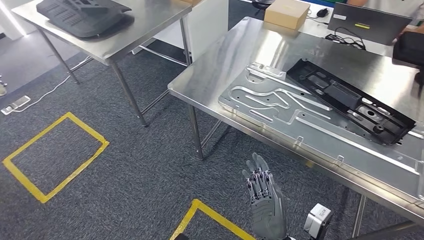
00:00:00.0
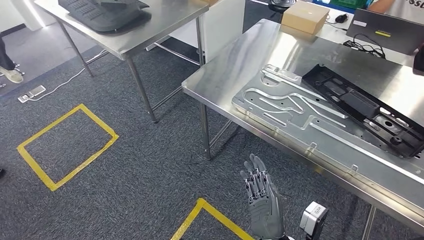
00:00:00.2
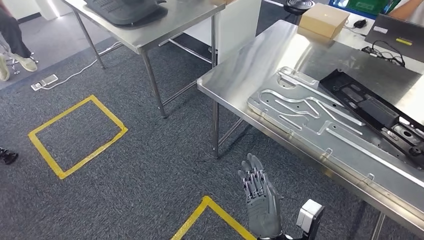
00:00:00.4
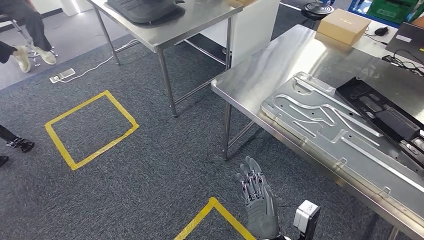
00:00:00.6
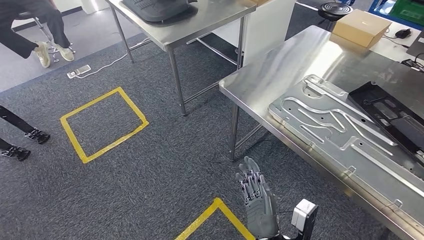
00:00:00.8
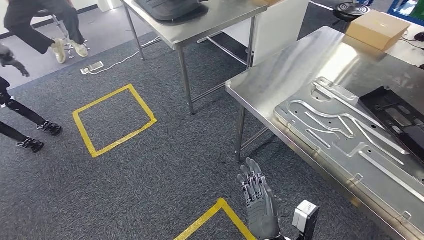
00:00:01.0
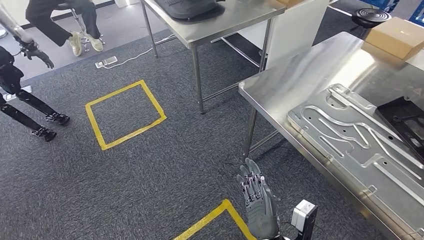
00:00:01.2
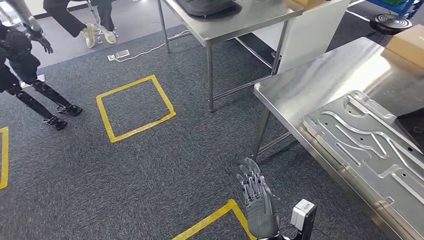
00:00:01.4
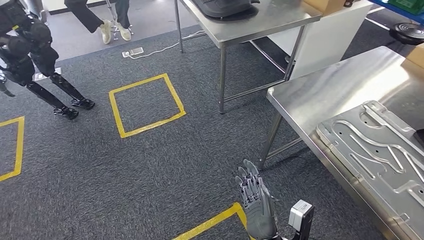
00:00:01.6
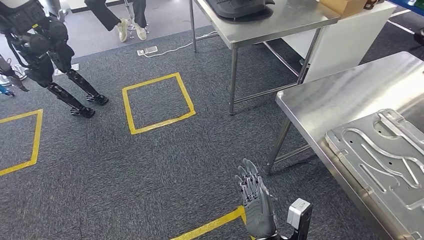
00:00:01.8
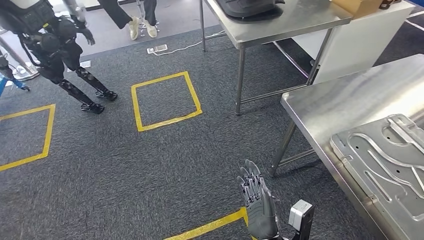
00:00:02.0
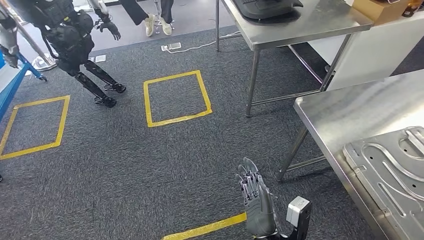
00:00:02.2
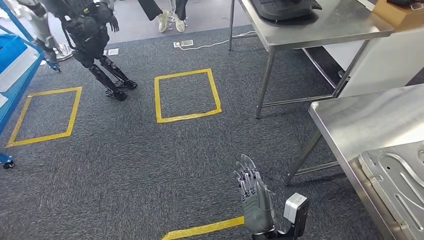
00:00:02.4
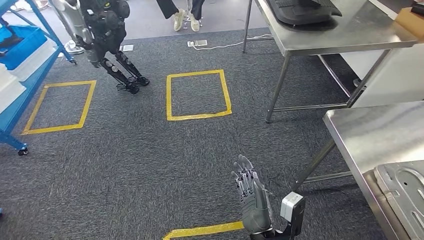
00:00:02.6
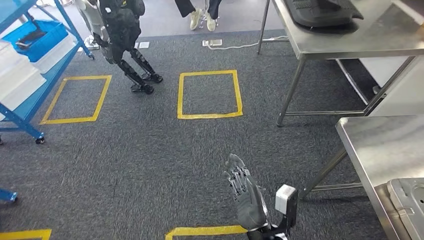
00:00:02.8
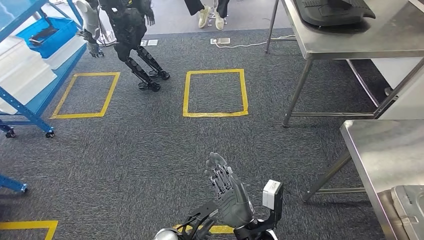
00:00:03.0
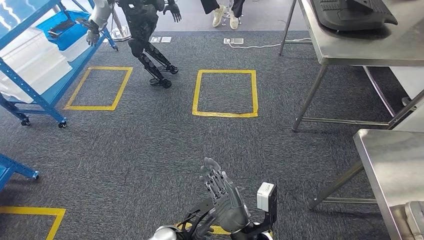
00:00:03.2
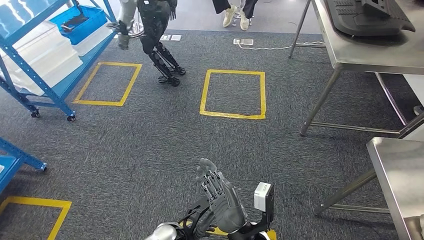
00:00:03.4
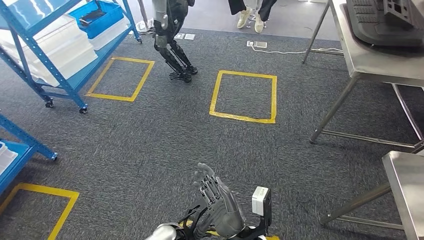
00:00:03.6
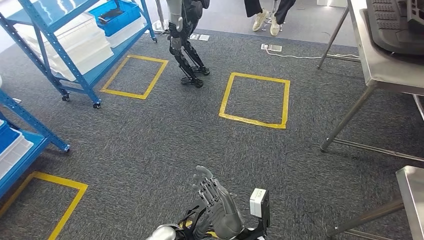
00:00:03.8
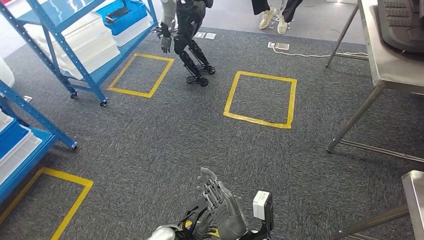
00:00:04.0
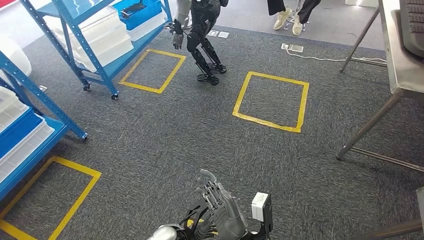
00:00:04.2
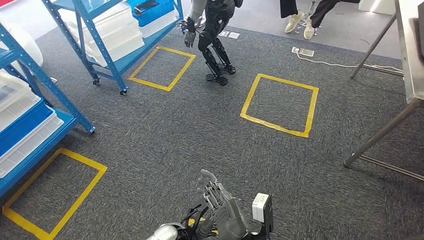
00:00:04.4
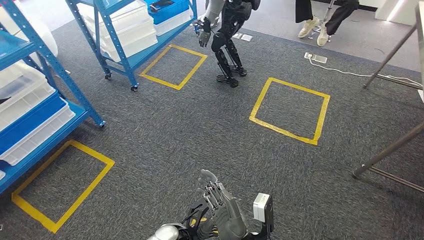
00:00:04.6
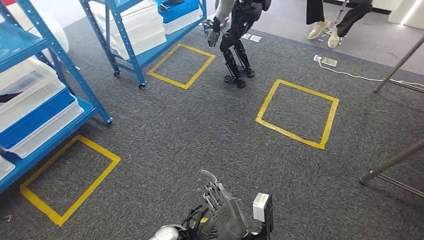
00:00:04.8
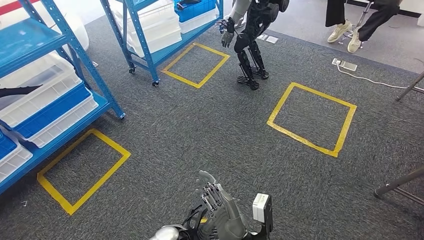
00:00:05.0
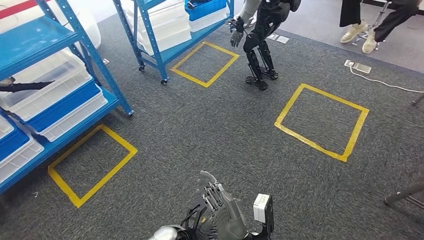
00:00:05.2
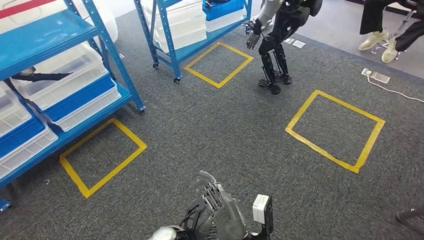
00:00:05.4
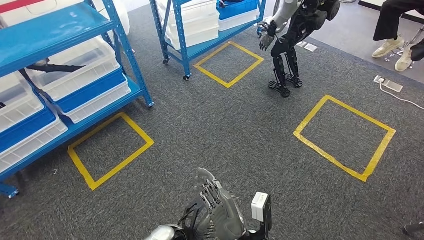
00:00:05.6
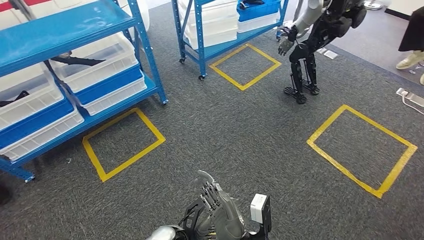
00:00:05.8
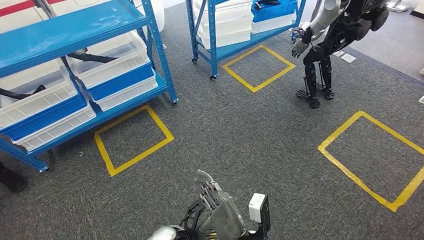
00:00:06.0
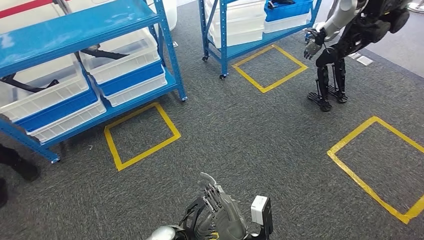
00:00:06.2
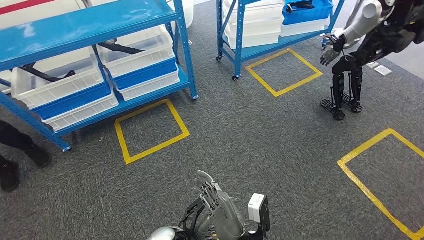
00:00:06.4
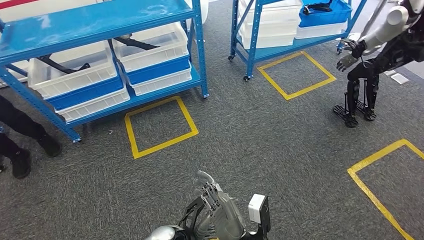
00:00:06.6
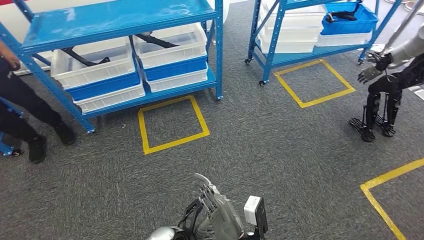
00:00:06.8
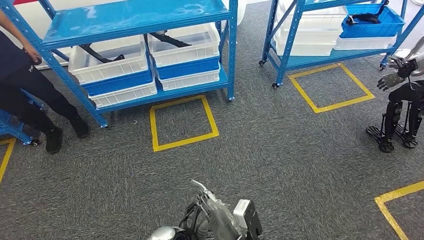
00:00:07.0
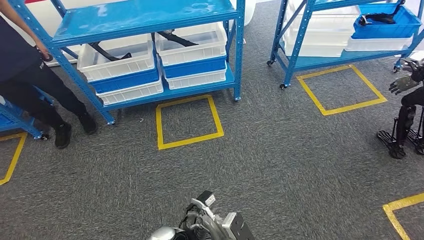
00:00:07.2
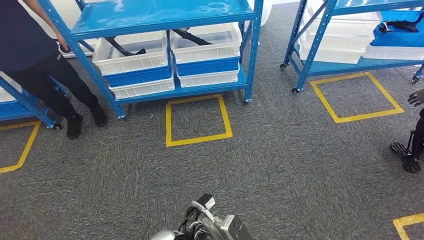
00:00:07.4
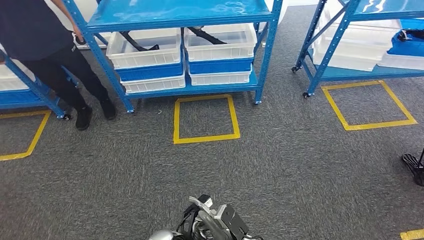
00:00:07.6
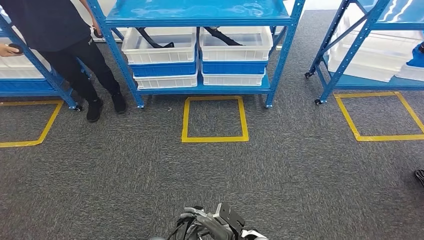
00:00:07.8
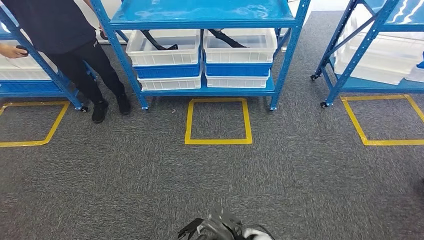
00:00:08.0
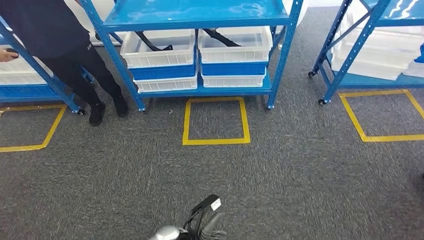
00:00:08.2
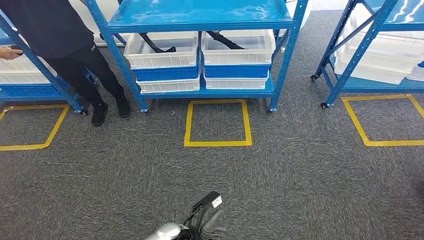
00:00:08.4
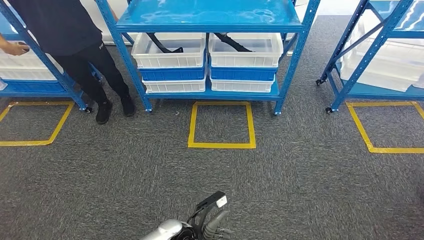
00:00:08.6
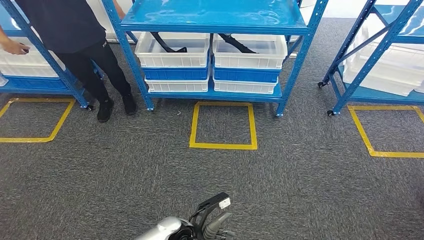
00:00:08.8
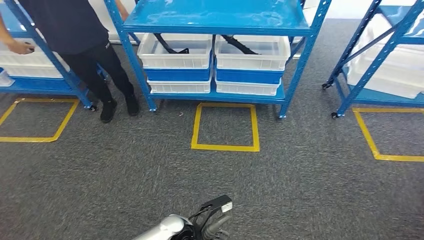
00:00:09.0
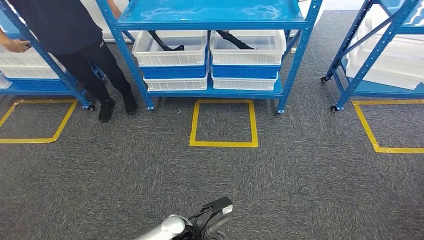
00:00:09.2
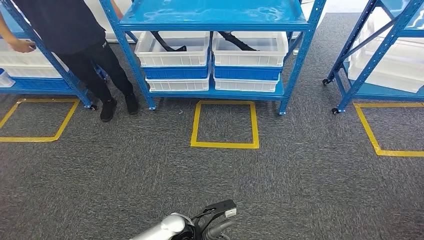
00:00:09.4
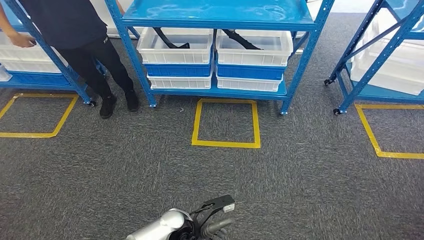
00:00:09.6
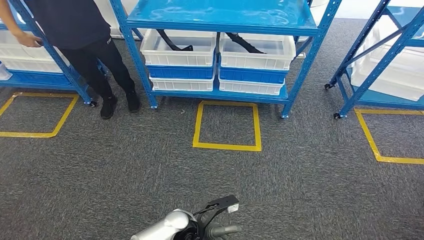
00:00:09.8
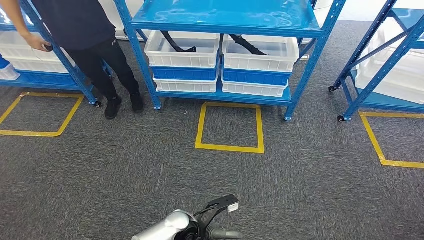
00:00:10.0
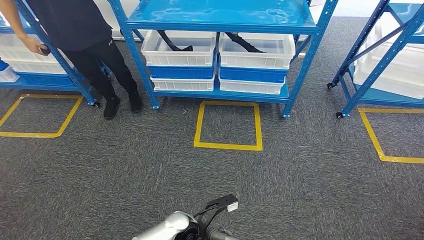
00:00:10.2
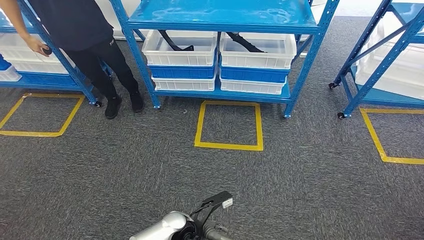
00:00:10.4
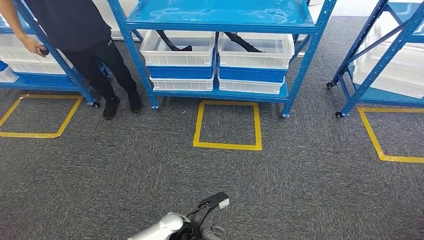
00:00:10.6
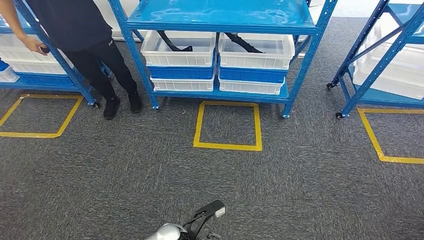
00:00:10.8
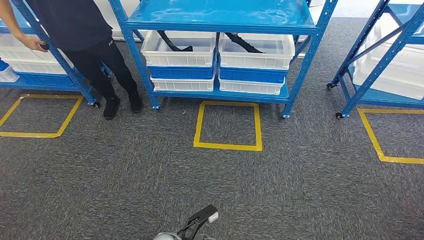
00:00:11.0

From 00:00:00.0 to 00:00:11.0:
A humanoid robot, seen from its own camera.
Step, from 00:00:00.0 to 00:00:11.0: Return to the initial position at the shelf.
